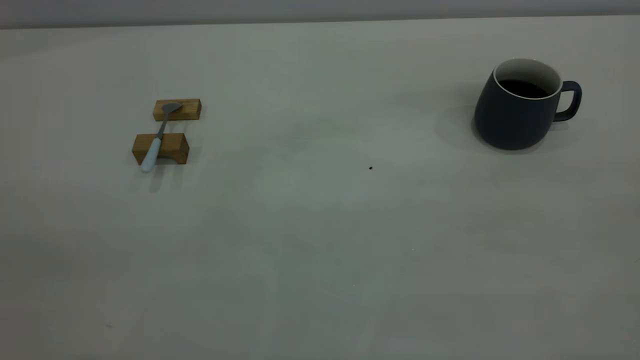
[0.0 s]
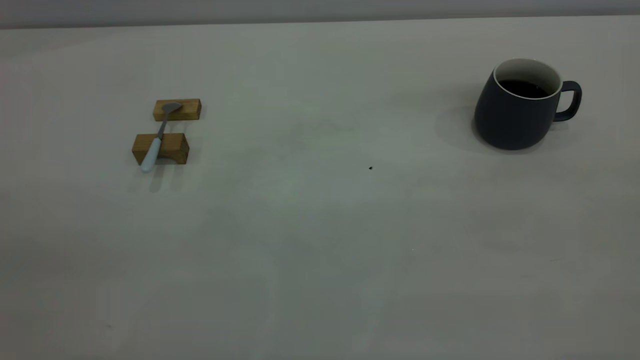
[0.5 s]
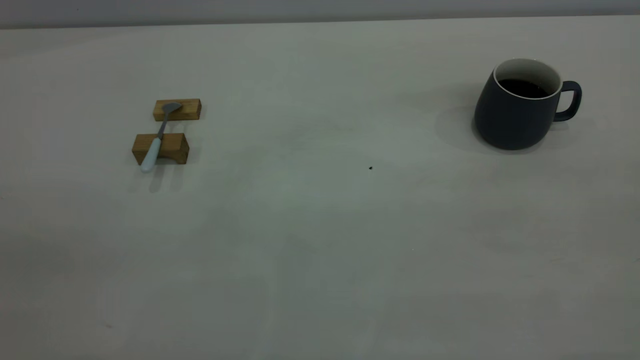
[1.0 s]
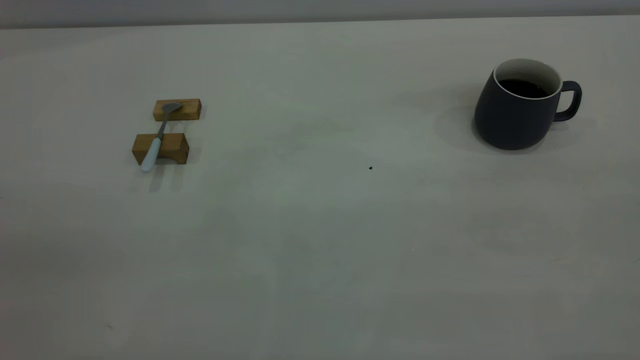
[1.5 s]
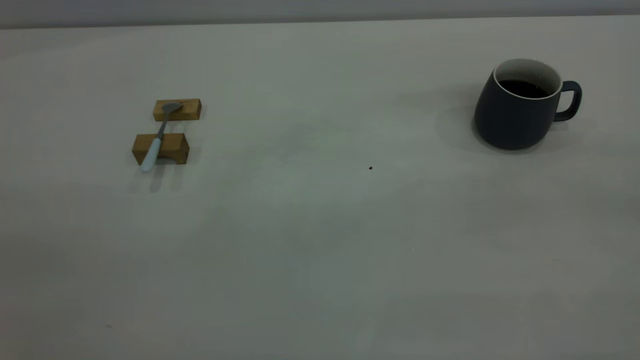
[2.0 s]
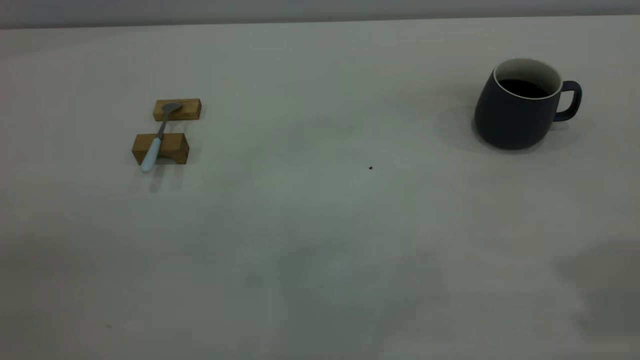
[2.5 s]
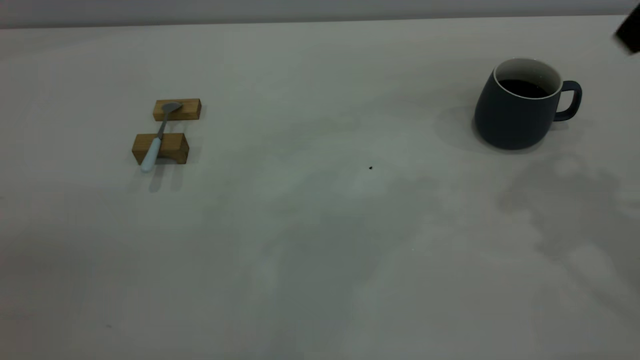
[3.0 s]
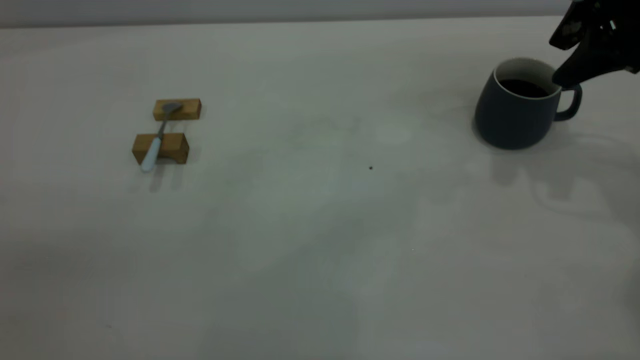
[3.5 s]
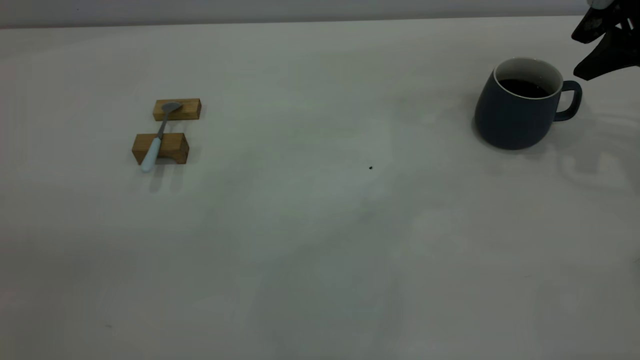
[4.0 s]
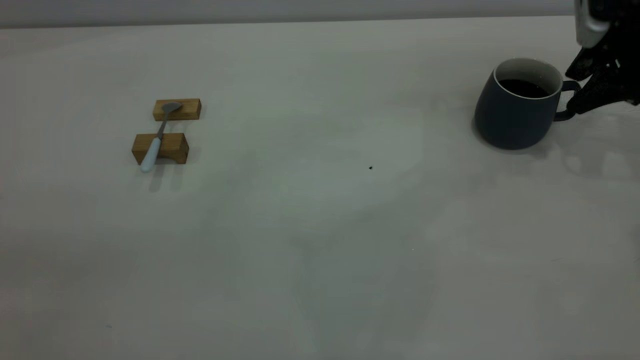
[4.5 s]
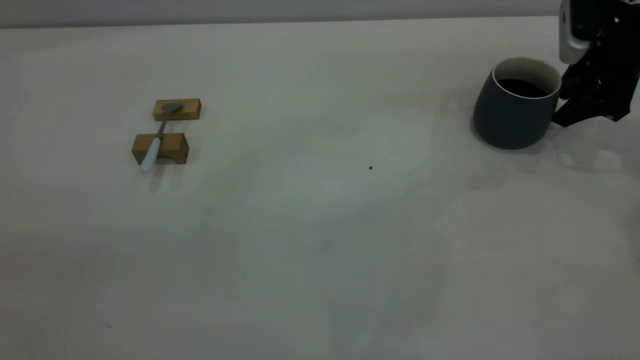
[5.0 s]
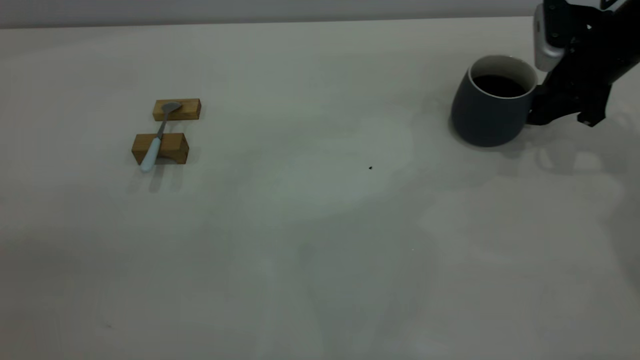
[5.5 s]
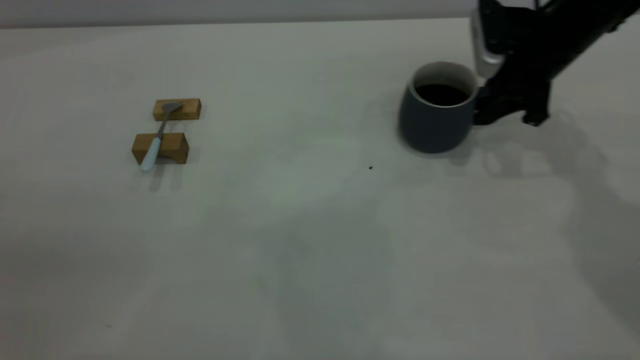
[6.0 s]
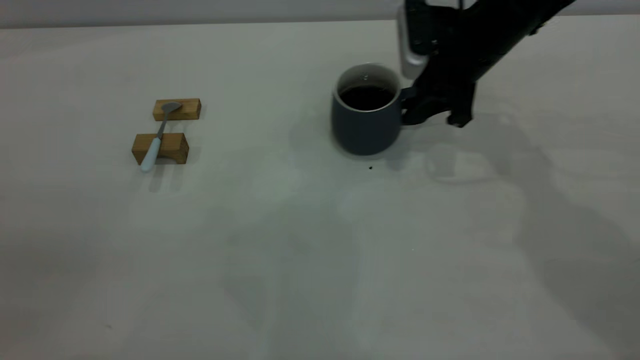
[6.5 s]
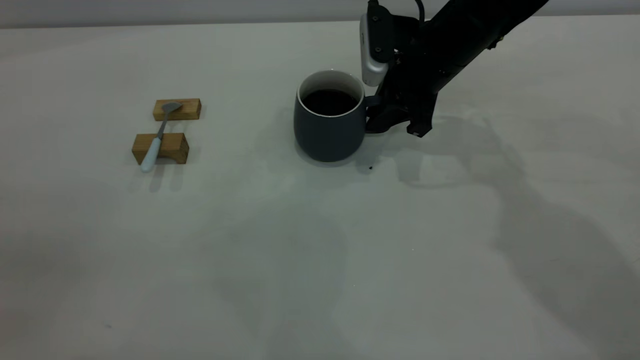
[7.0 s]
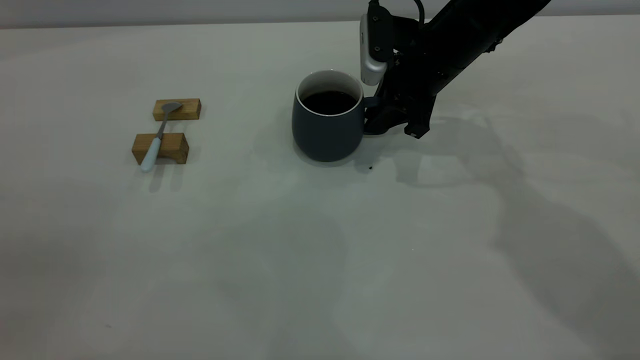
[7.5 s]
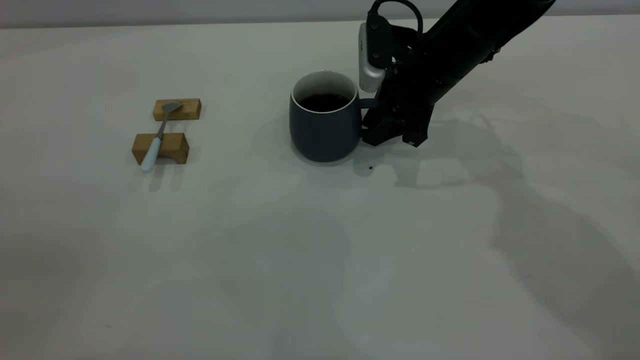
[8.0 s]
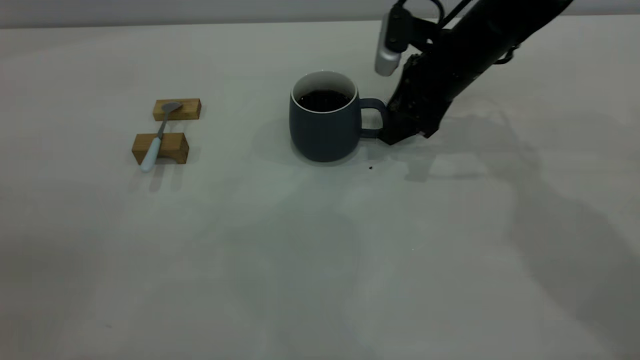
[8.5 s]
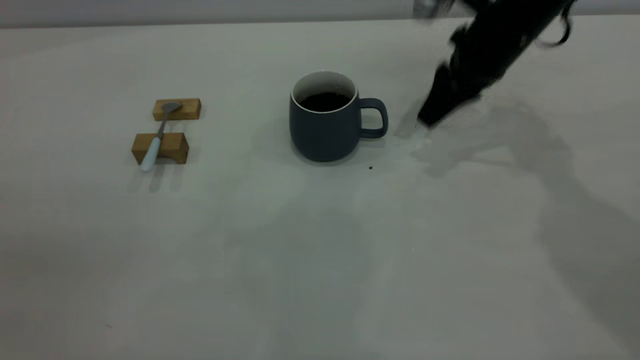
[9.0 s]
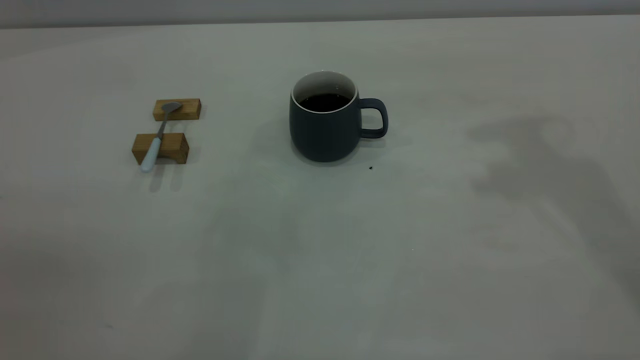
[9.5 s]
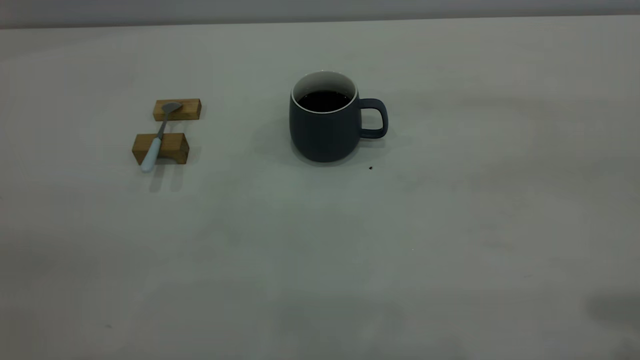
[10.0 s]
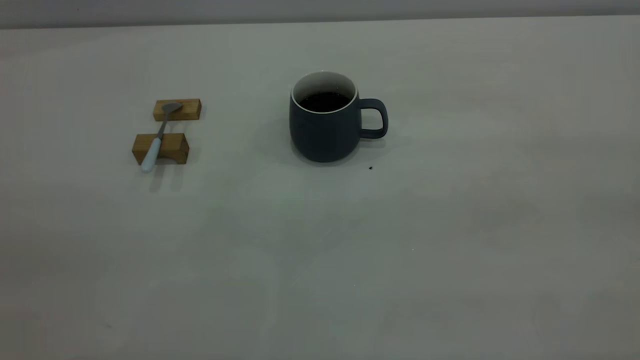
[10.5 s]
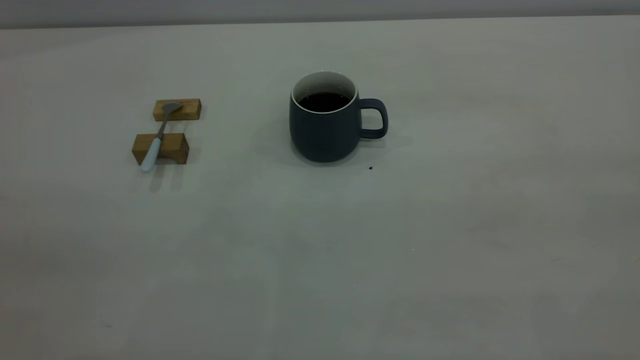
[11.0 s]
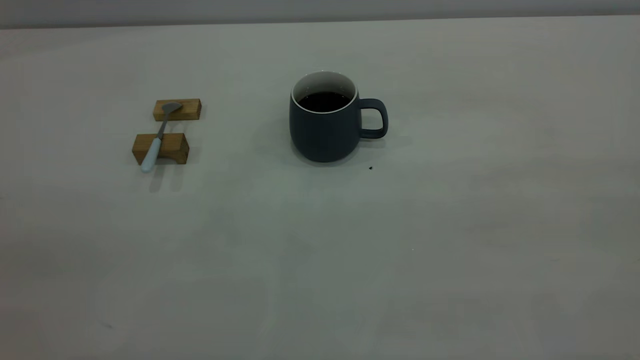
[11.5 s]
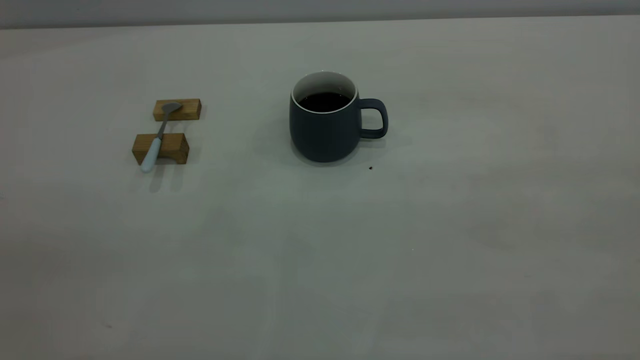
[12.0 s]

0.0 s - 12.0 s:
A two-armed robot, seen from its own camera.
Step, 0.0 s - 8.5 s: Move the cup with coffee to the center of view.
2.0 s - 4.0 s: The right gripper heads forward and downward, covering about 40 cm.
4.0 s - 6.0 s: The right gripper goes about 15 cm to the left and downward, and closes.
6.0 s - 8.0 s: The right gripper travels to the left by roughly 10 cm.
8.0 s - 10.0 s: The right gripper heads backward, upward and to the right, covering about 50 cm, and opens.

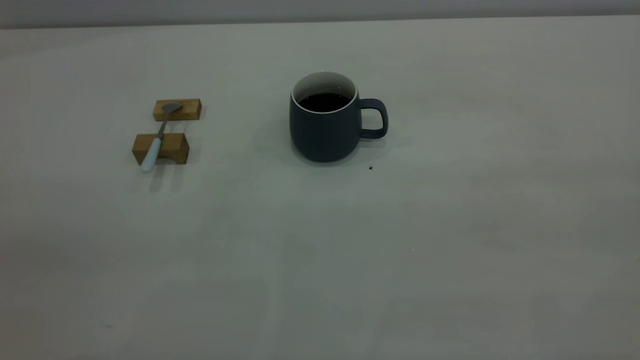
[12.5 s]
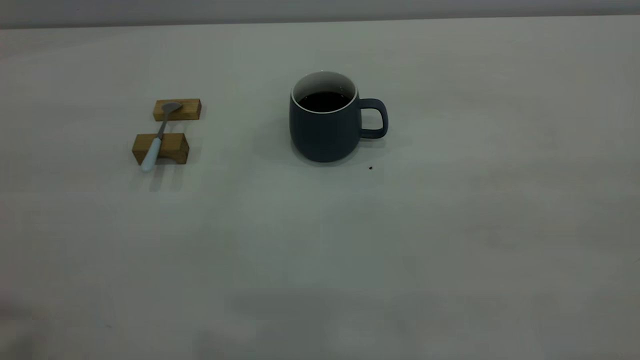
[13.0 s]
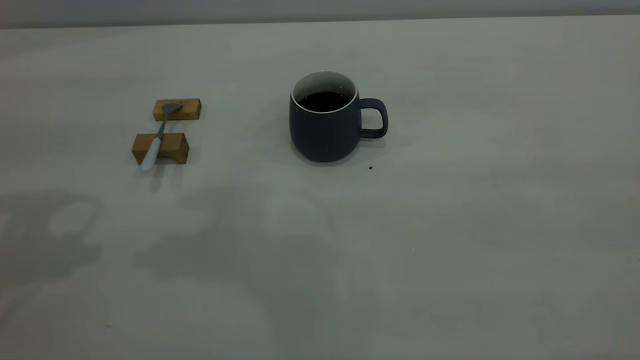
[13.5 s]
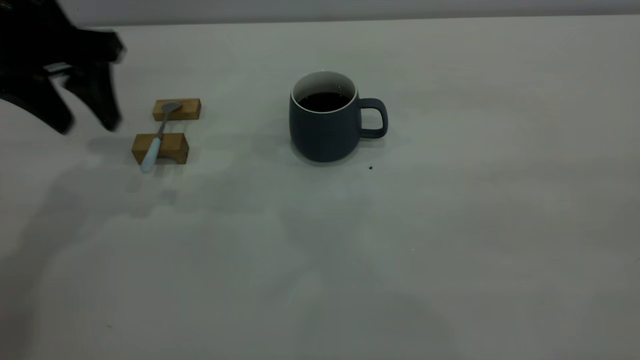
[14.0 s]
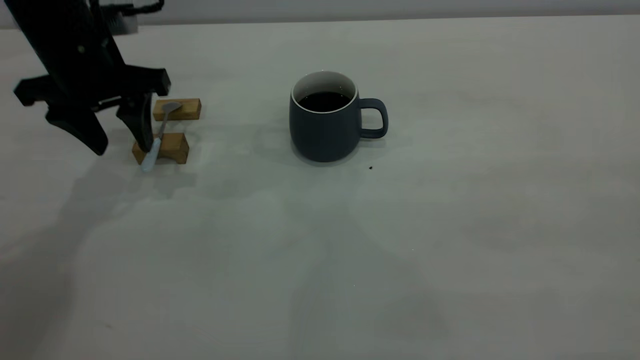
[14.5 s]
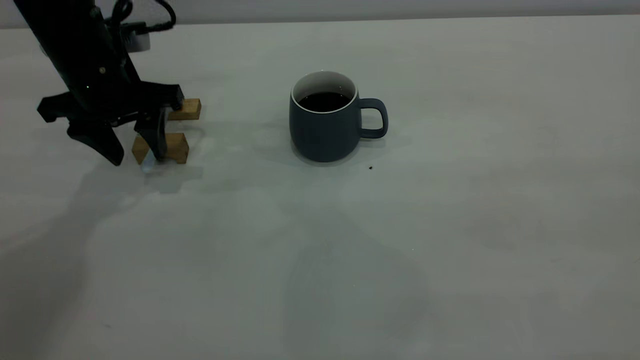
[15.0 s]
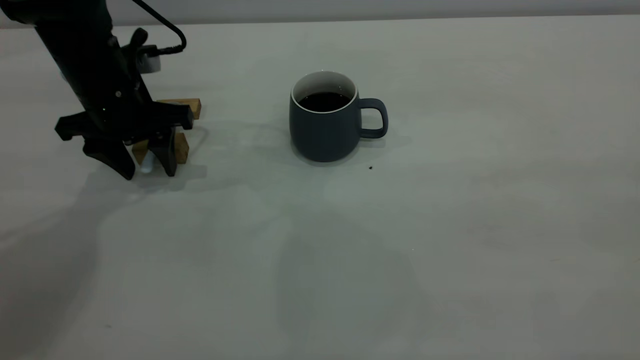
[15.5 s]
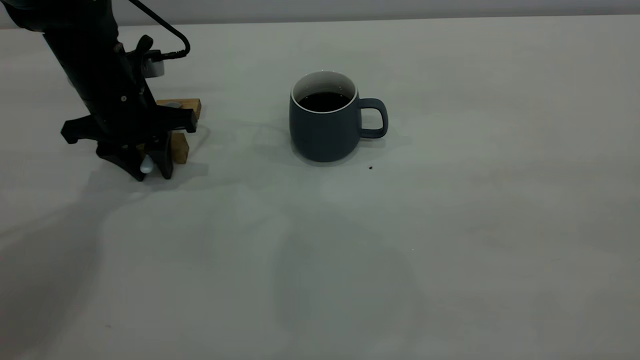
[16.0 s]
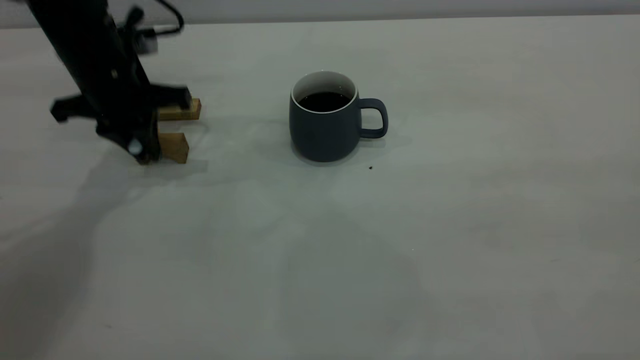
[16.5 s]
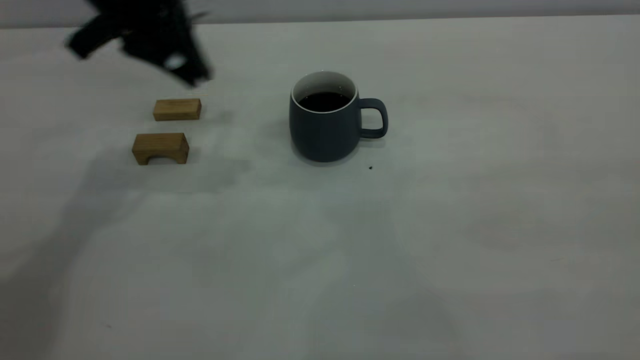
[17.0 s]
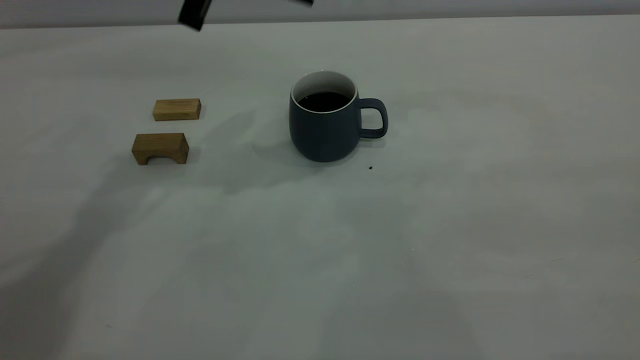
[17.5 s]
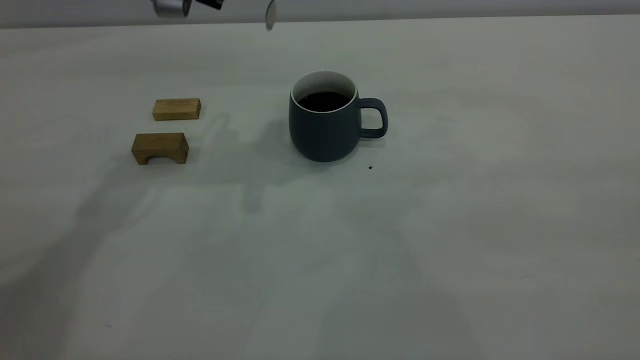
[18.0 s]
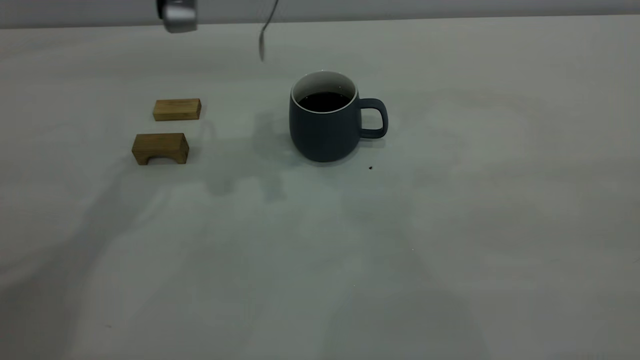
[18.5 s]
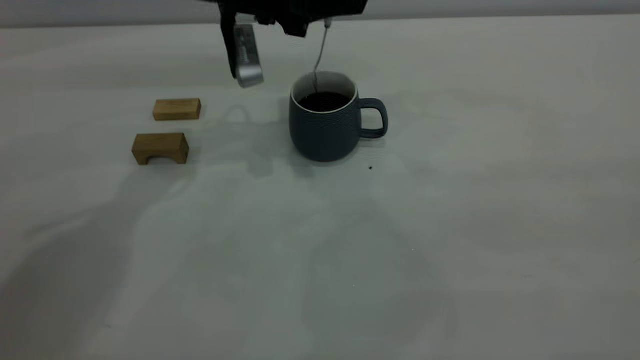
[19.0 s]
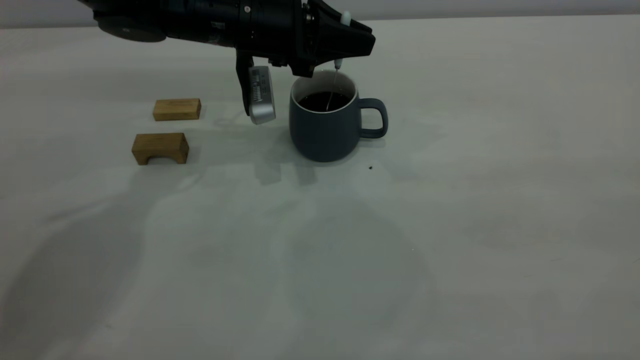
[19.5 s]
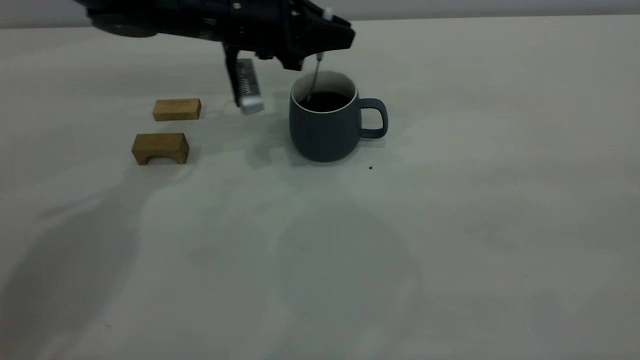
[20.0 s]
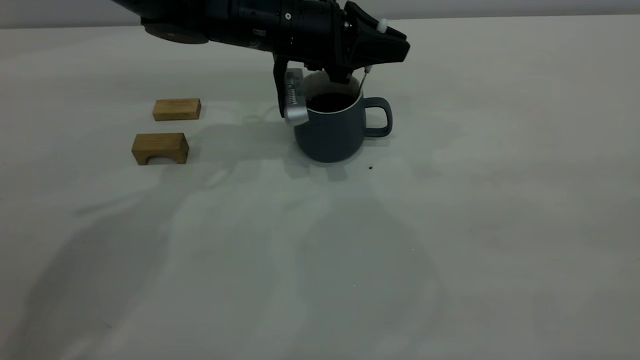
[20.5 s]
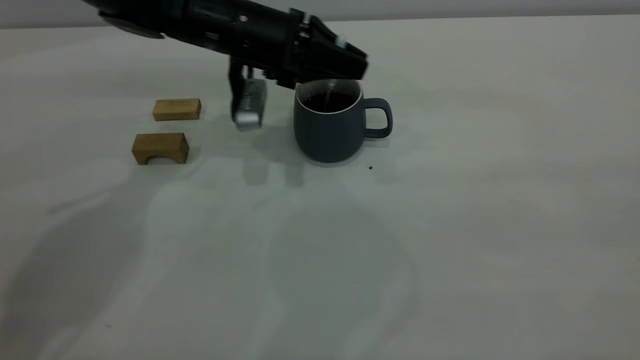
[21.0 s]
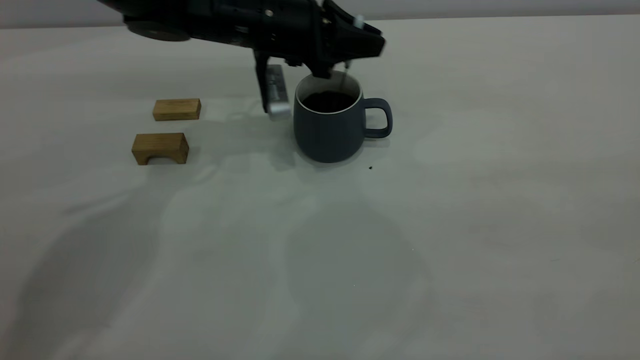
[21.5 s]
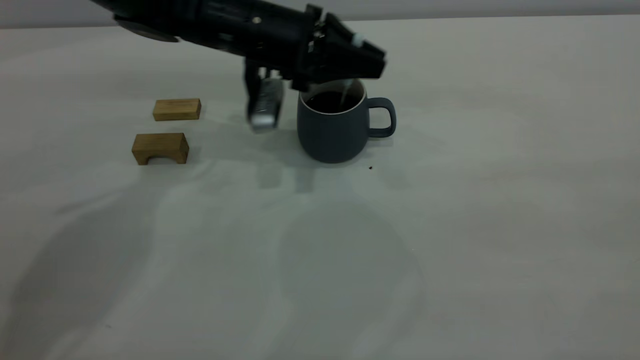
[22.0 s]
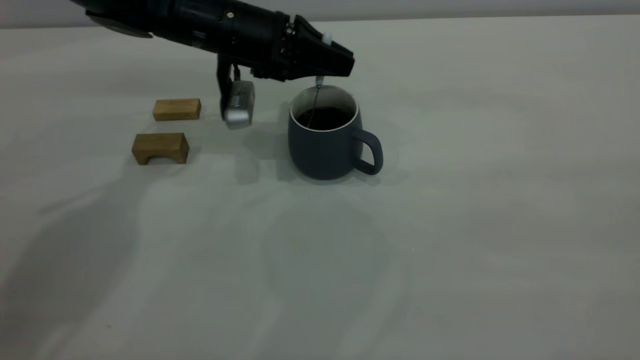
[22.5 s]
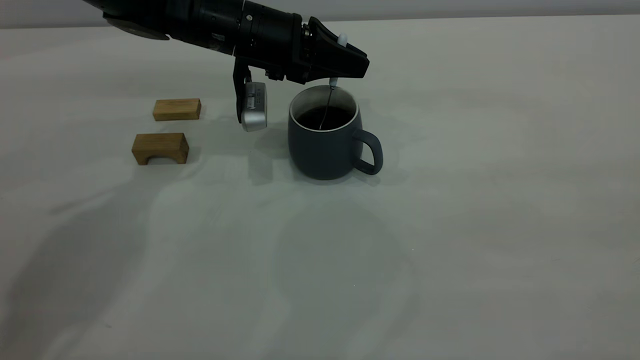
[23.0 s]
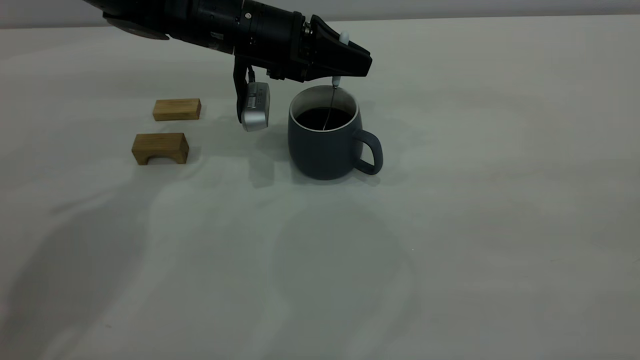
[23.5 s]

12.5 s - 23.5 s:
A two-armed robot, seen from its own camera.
Step, 12.5 s - 16.5 s: Pick up the spoon.
12.5 s - 14.5 s: The left gripper heads forward and downward, covering about 40 cm.
14.5 s - 16.0 s: The left gripper travels downward by approximately 5 cm, and closes up.
16.0 s - 18.0 s: The left gripper heads upward and to the right, covering approximately 20 cm, and closes up.
18.0 s - 20.0 s: The left gripper heads downward and forward, covering roughly 15 cm.
20.0 s - 23.5 s: The grippers make only small movements.
